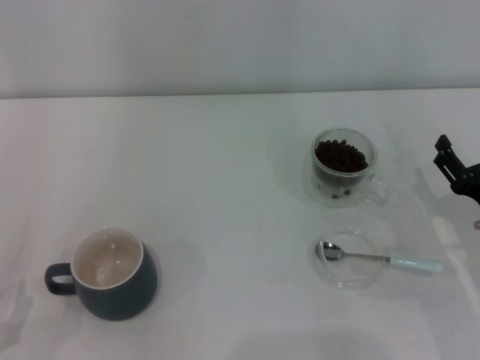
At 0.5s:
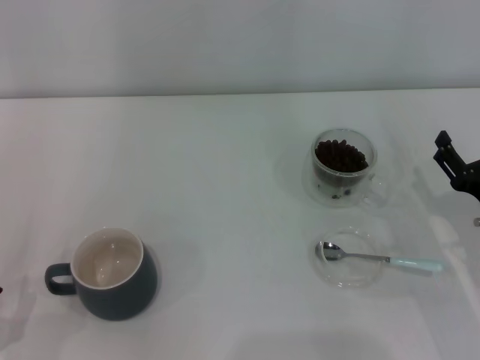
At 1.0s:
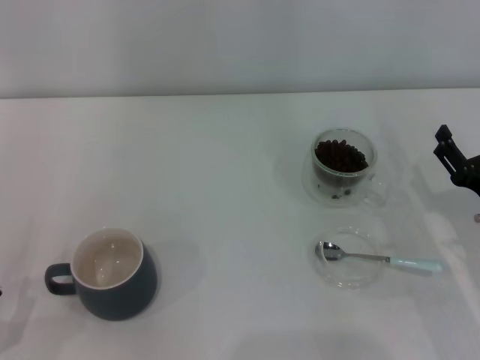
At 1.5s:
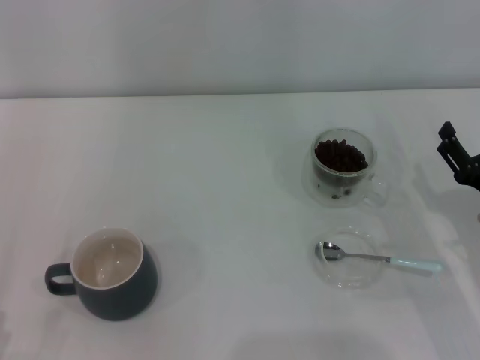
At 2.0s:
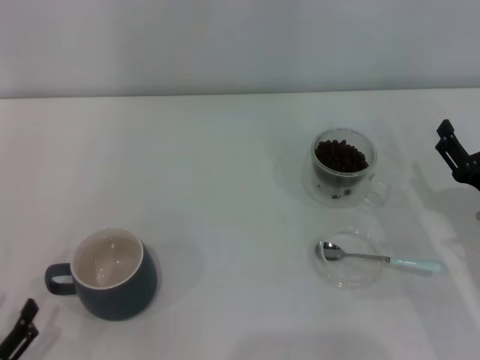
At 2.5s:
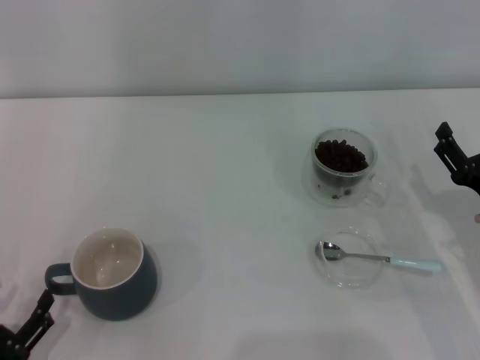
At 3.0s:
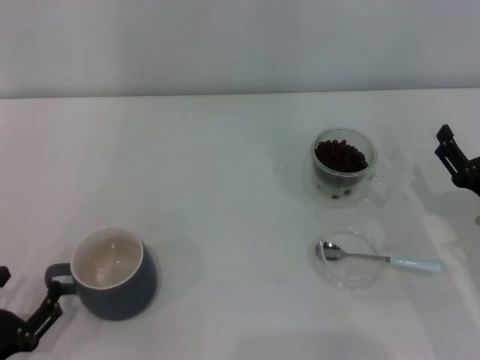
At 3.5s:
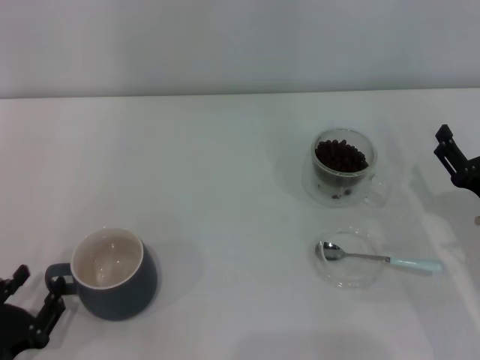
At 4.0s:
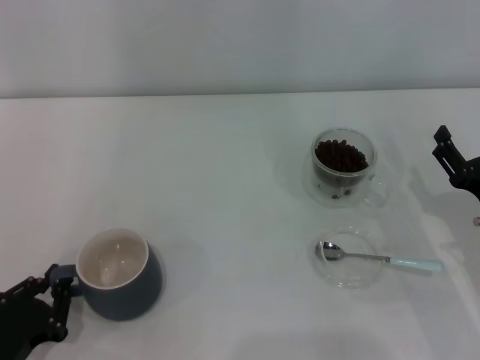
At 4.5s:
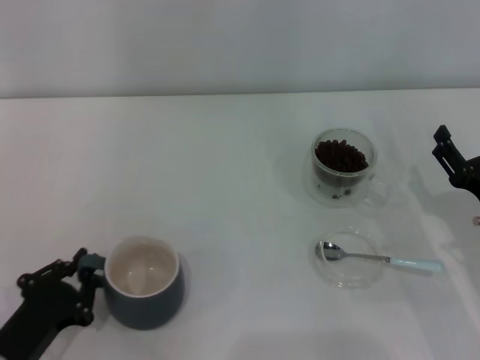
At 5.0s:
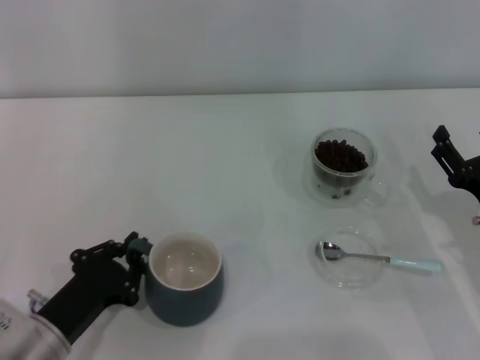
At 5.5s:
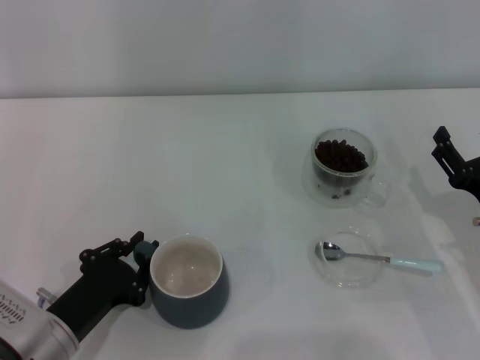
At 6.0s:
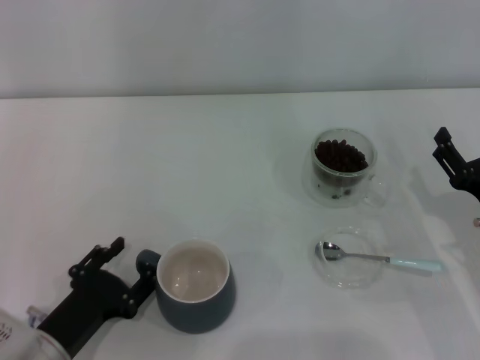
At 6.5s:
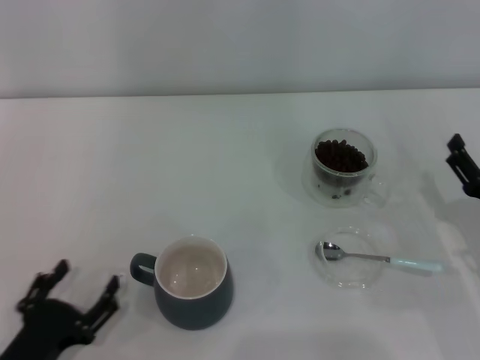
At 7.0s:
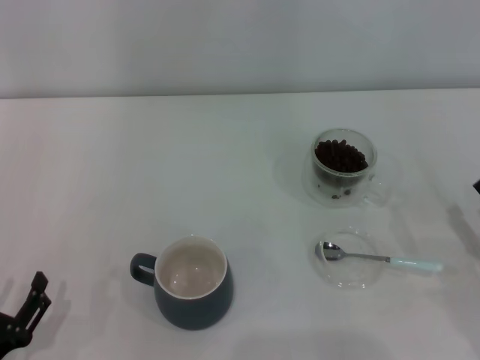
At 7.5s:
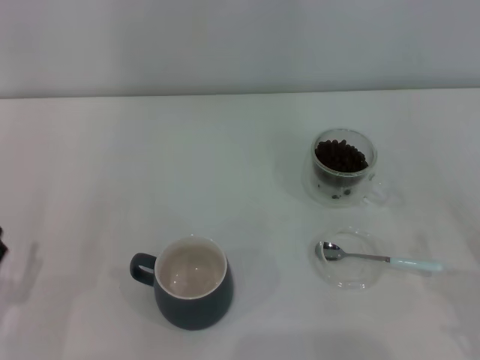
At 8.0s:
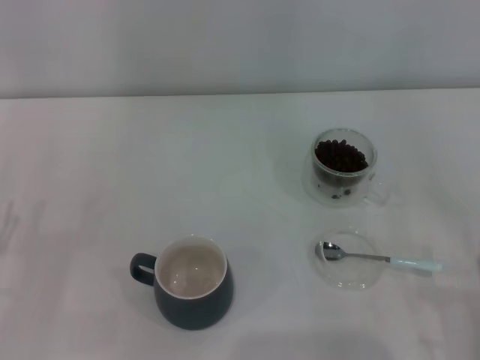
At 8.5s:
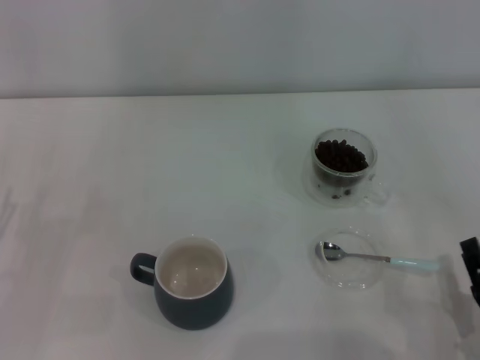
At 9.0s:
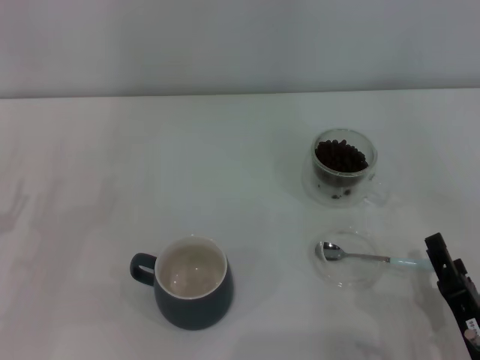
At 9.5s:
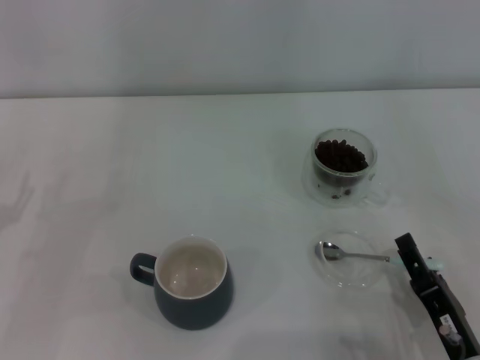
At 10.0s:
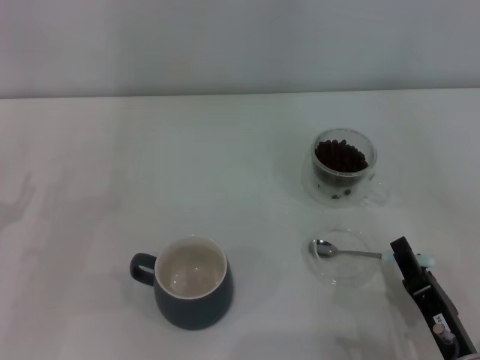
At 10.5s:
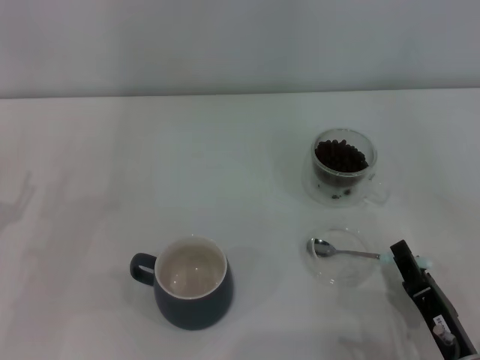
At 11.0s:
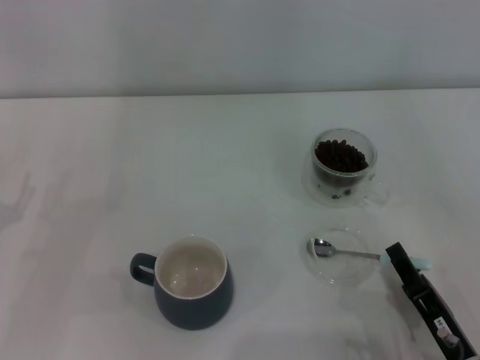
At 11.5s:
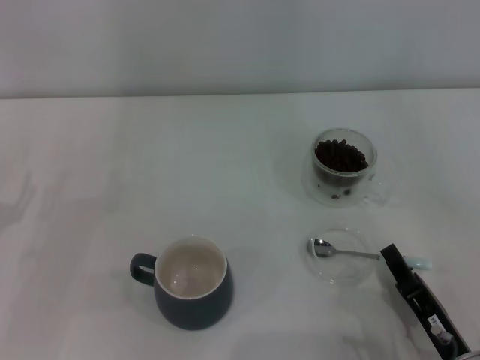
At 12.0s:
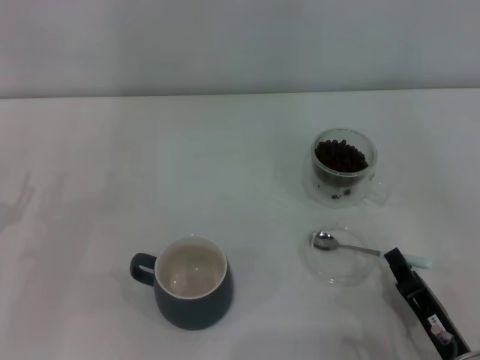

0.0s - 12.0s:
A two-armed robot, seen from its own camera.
Task of the whole recording: Use a blue spoon to take out the coffee beans from the glass and pour them into the gray cup.
Step, 0.0s - 6.5s: Move the cup to the center of view with the left gripper.
0.0s - 2.0s: The grippers move only a little.
2.0s - 4.0s: The left gripper goes about 5 cm forward, and closes.
4.0s - 6.0s: The left gripper heads to the right, covering roughly 5 cm.
6.0s - 8.0s: The left gripper moves to the left, roughly 10 cm, and opens. Meanwhile the right gripper shifts approximately 15 cm backward.
8.0s - 10.0s: The right gripper moves to the left, about 10 cm.
10.0s - 12.0s: The right gripper closes up.

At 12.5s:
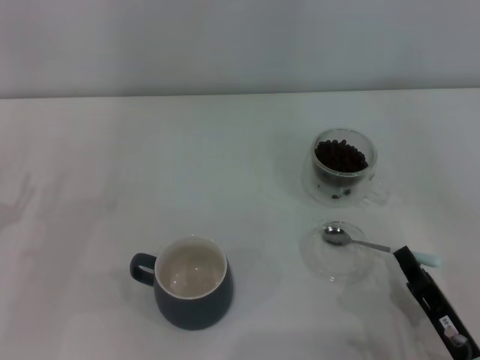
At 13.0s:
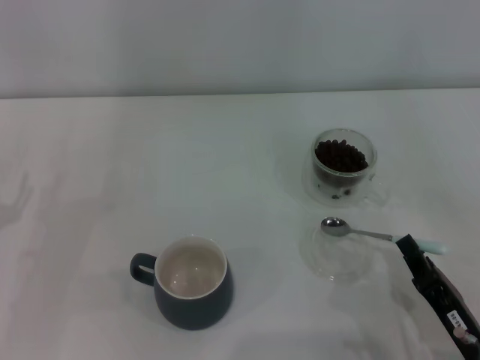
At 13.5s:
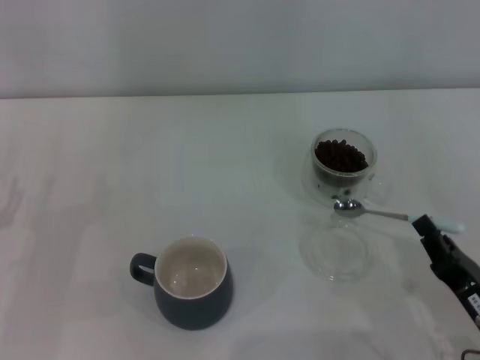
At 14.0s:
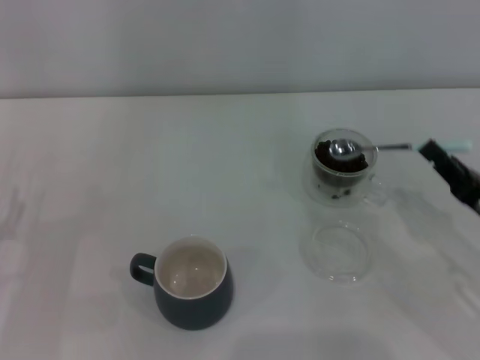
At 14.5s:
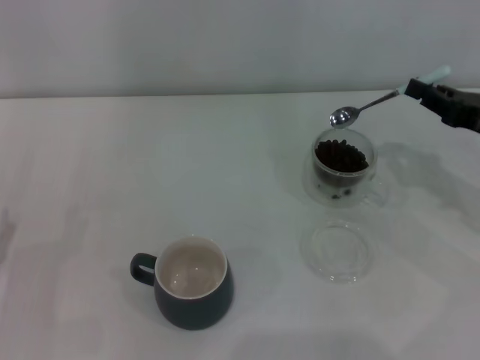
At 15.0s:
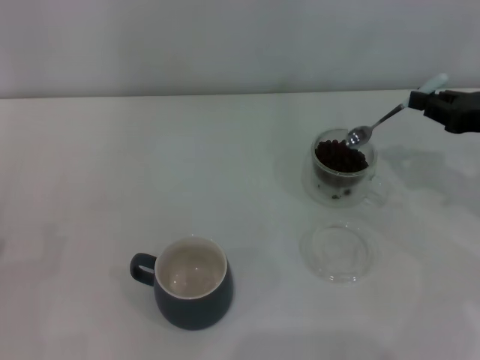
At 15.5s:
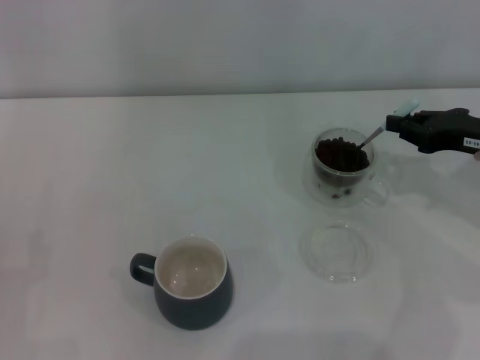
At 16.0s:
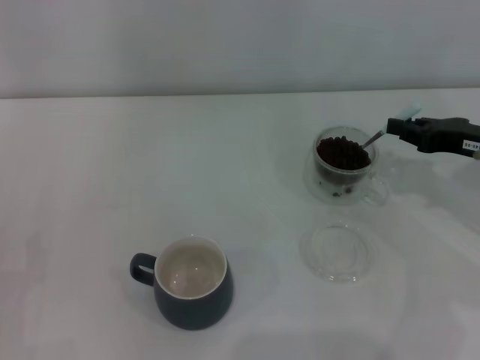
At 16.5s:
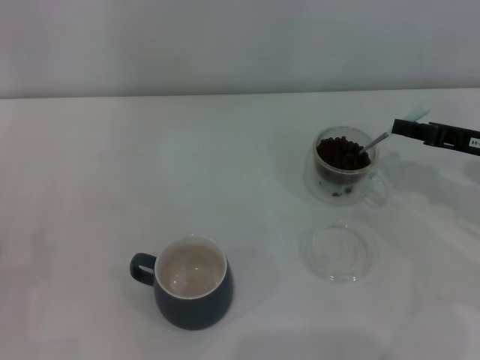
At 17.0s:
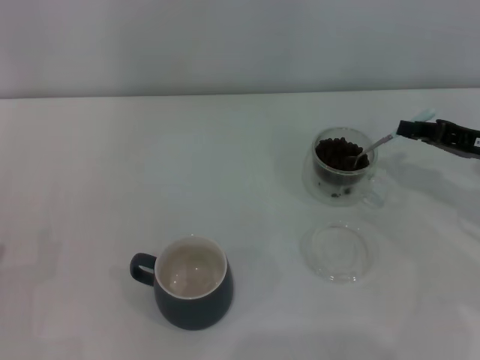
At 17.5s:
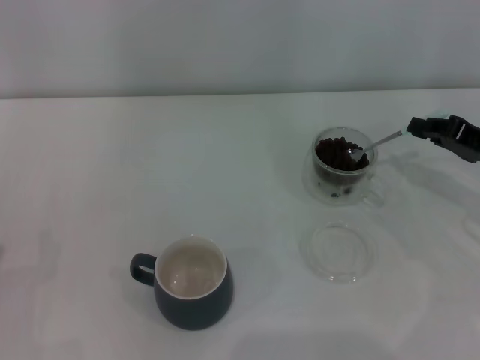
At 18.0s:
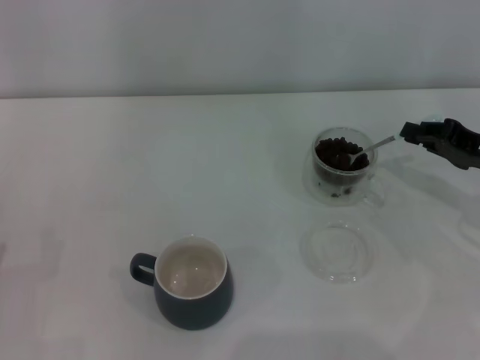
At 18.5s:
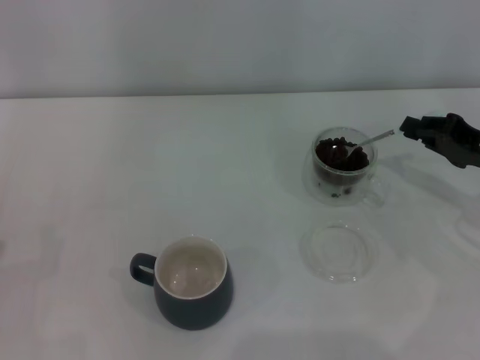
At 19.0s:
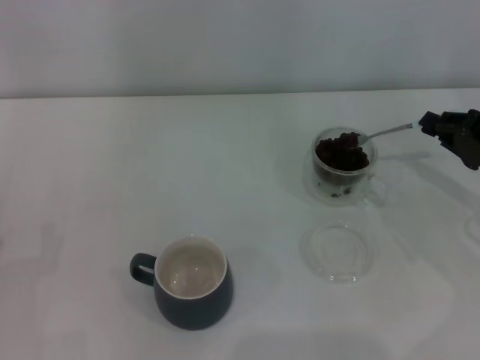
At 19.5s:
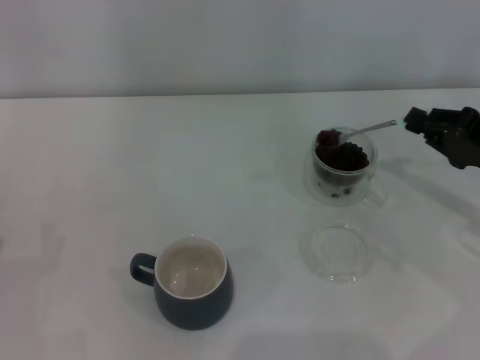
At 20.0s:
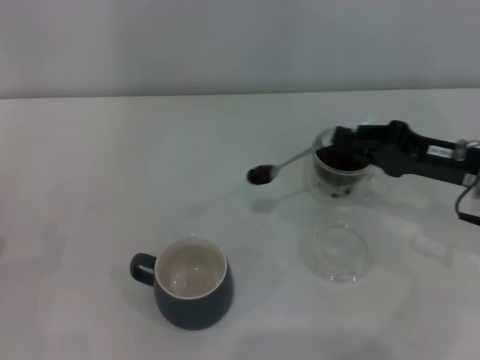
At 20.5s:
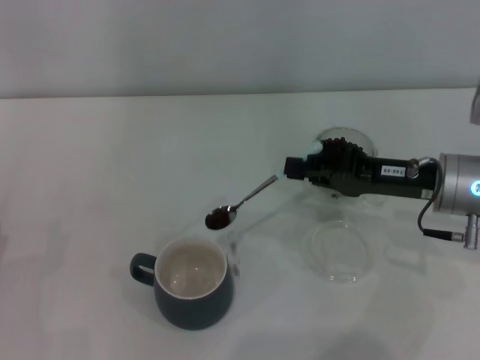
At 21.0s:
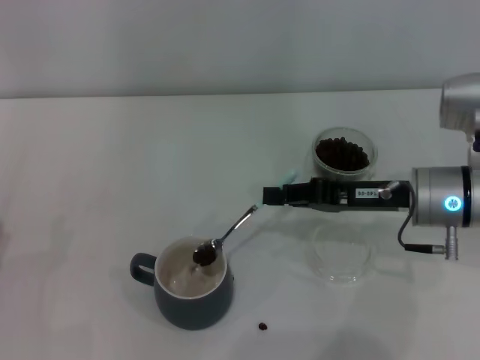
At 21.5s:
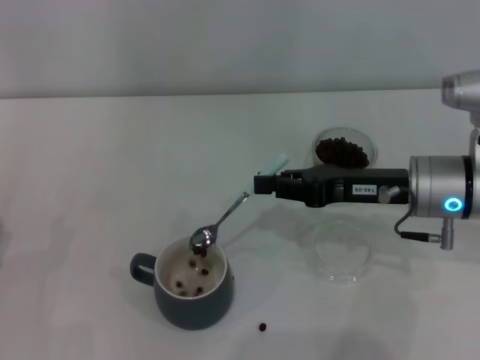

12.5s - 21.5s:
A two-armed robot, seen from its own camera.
Task of the whole recording: Use a blue spoon to take out the coffee beans from the glass and pour them into the gray cup.
12.5s - 14.5s: The right gripper travels forward, to the right and upward by some 25 cm.
19.5s - 21.5s: The right gripper is displaced to the left by roughly 10 cm.

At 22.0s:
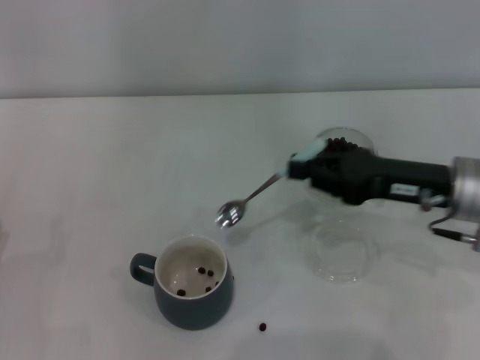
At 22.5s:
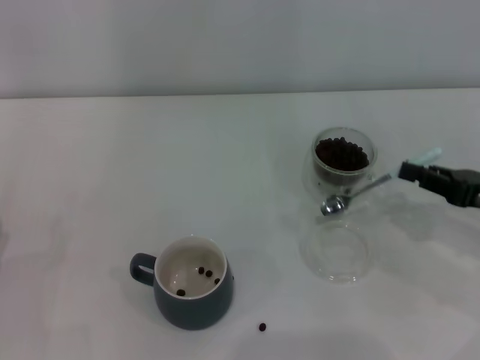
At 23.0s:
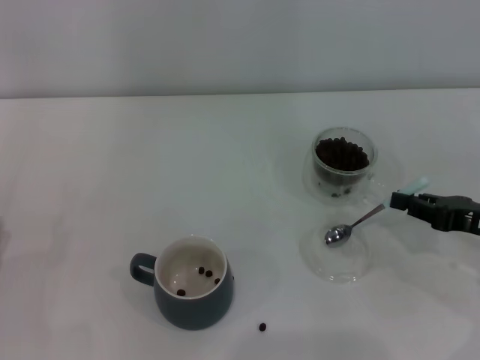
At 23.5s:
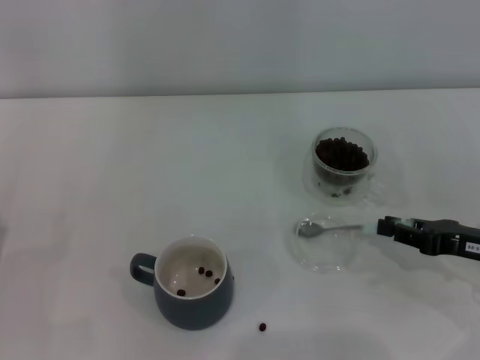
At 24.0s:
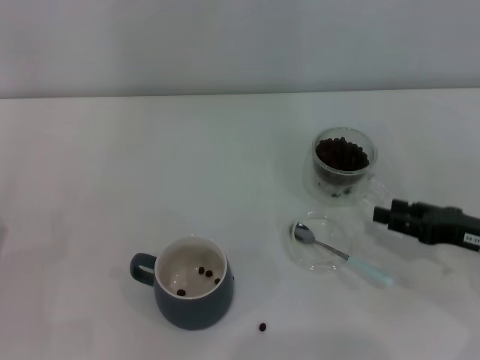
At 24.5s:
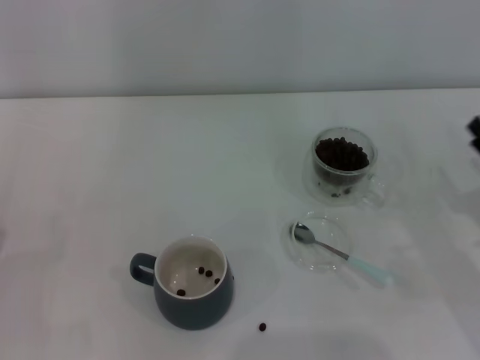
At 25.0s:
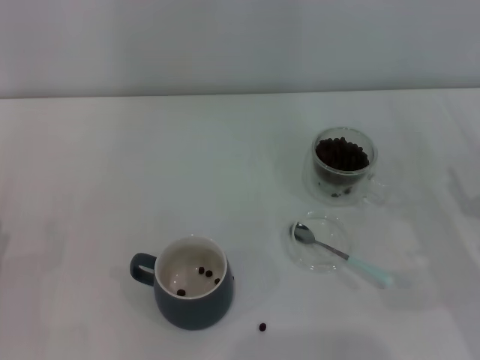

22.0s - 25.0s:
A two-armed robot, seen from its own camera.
Task of the whole recording: Use a blue spoon to take out the coffee beans from the glass and pour them into the gray cup.
Step, 22.0s - 23.5s: Place the spoon back in its original place with the right gripper.
22.0s - 23.5s: The right gripper shifts approximately 10 cm to the right and downward.
23.5s - 25.0s: The right gripper opens up.
